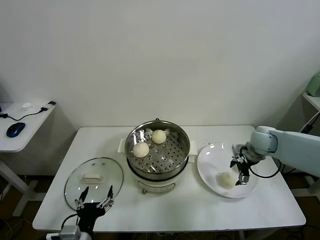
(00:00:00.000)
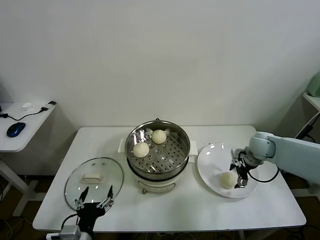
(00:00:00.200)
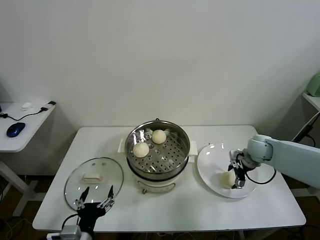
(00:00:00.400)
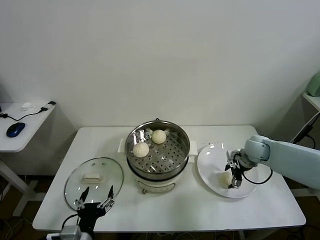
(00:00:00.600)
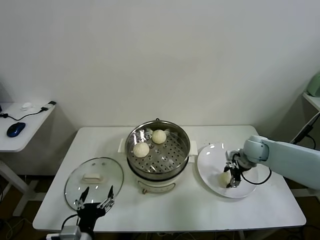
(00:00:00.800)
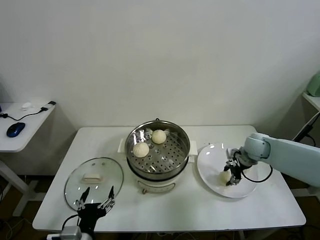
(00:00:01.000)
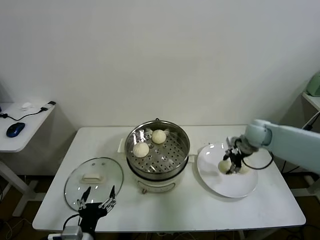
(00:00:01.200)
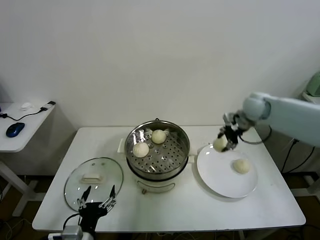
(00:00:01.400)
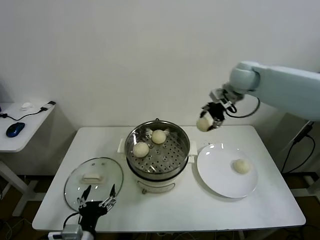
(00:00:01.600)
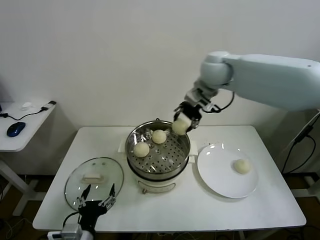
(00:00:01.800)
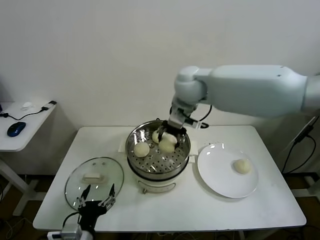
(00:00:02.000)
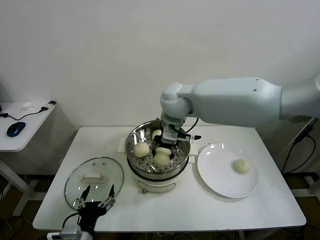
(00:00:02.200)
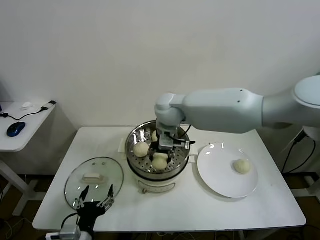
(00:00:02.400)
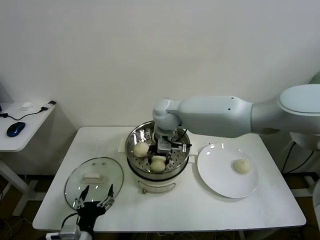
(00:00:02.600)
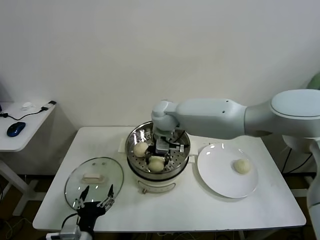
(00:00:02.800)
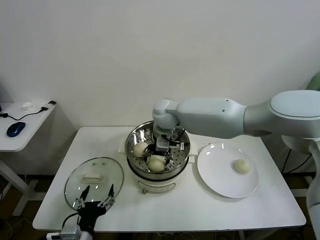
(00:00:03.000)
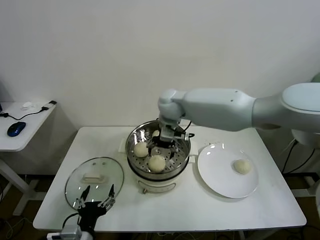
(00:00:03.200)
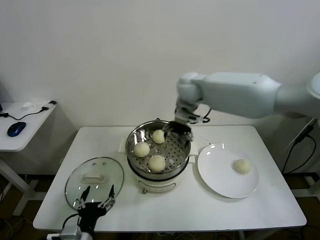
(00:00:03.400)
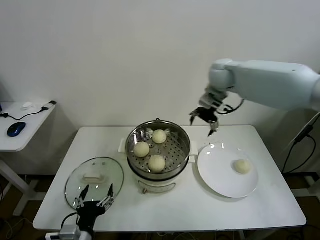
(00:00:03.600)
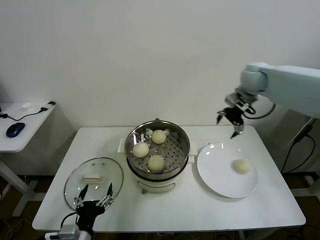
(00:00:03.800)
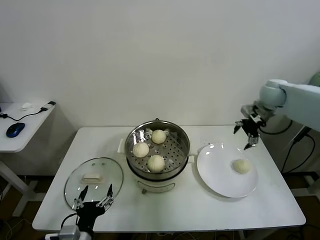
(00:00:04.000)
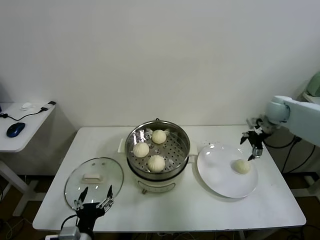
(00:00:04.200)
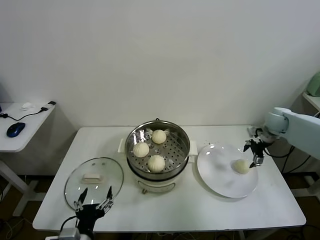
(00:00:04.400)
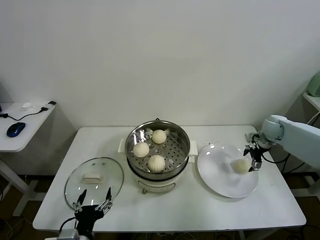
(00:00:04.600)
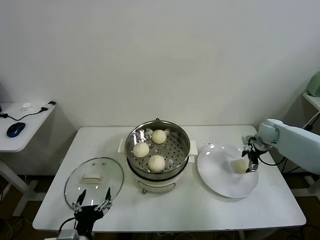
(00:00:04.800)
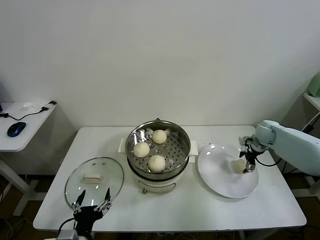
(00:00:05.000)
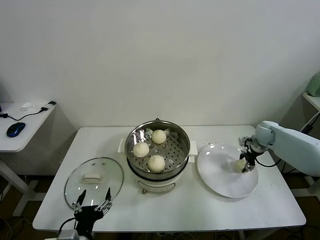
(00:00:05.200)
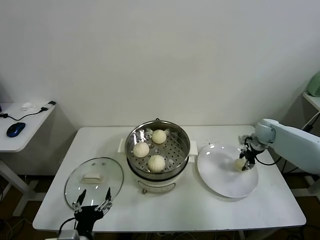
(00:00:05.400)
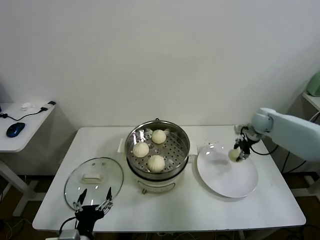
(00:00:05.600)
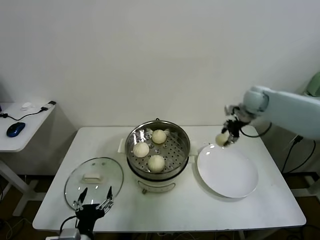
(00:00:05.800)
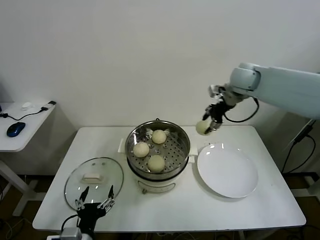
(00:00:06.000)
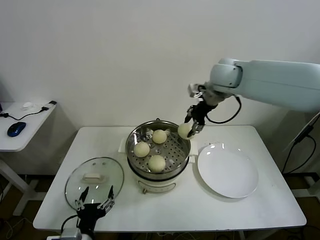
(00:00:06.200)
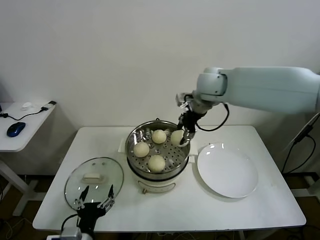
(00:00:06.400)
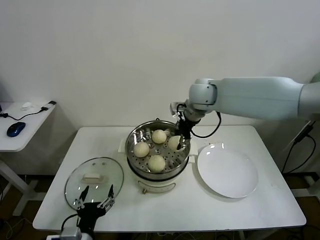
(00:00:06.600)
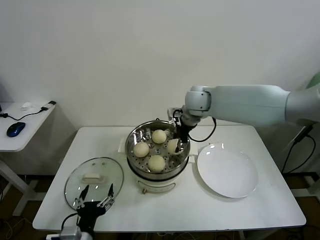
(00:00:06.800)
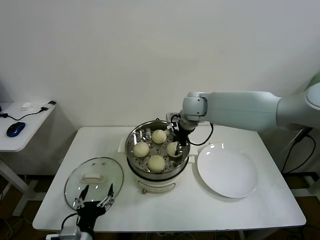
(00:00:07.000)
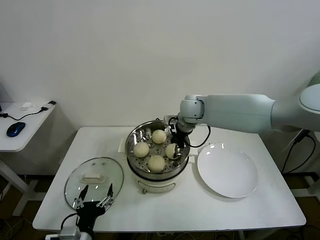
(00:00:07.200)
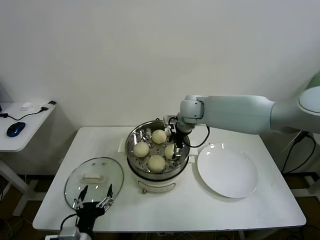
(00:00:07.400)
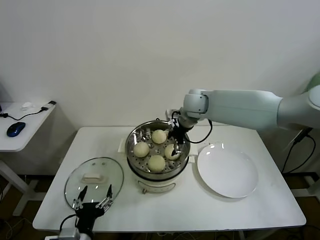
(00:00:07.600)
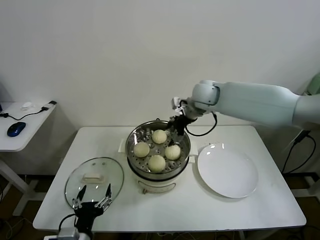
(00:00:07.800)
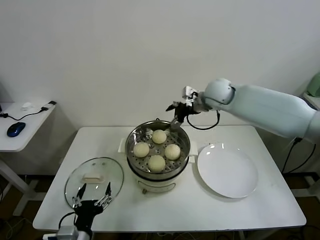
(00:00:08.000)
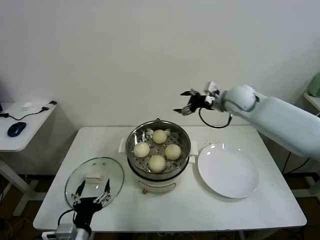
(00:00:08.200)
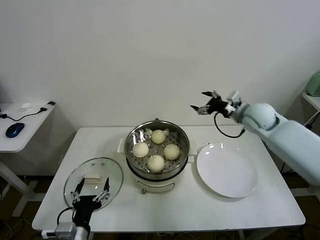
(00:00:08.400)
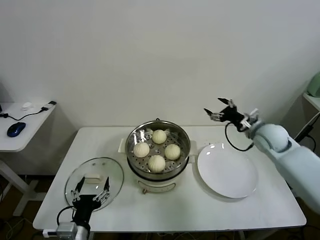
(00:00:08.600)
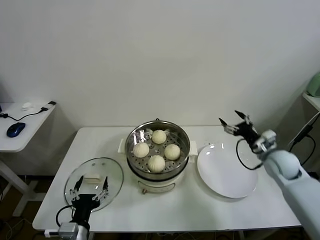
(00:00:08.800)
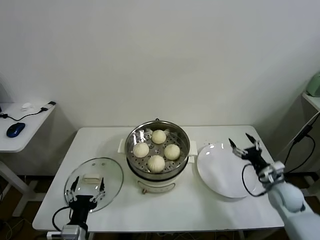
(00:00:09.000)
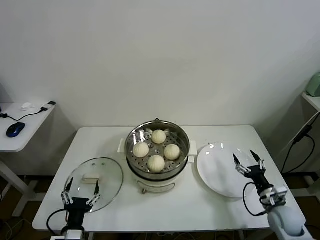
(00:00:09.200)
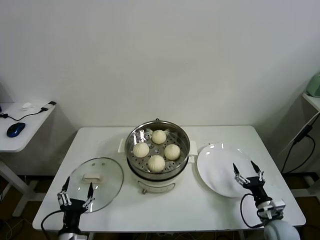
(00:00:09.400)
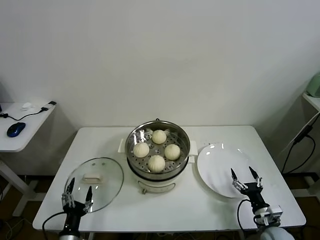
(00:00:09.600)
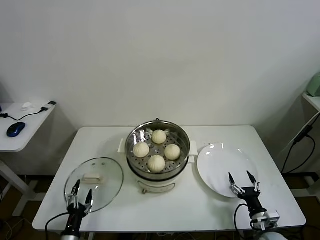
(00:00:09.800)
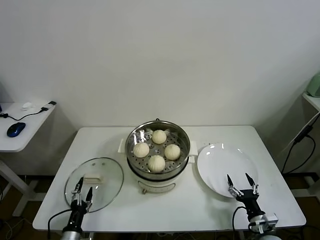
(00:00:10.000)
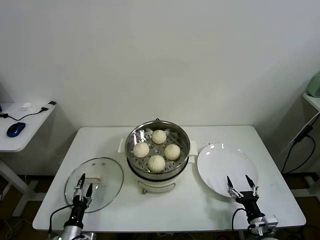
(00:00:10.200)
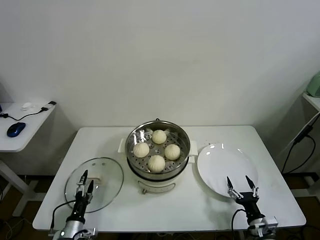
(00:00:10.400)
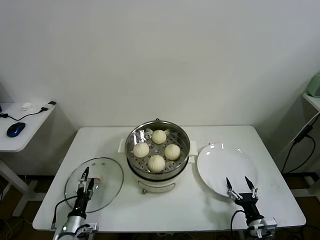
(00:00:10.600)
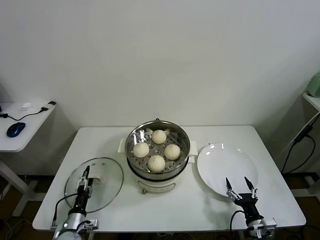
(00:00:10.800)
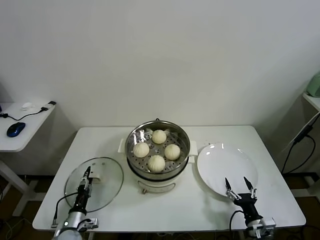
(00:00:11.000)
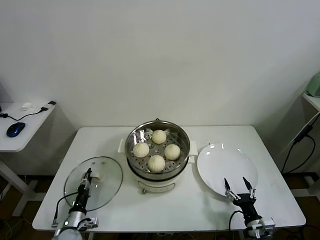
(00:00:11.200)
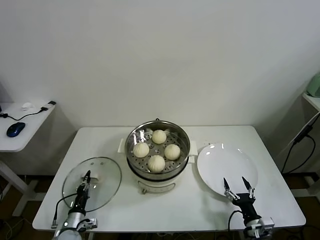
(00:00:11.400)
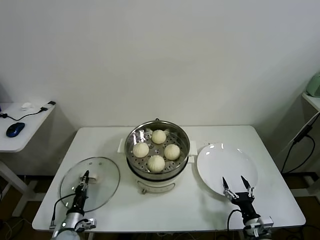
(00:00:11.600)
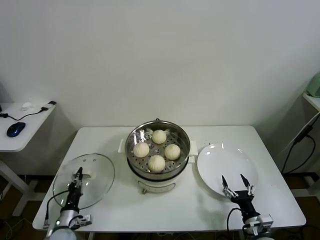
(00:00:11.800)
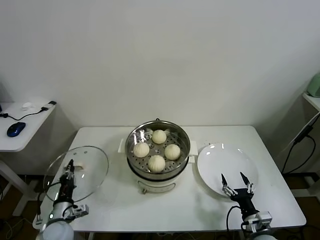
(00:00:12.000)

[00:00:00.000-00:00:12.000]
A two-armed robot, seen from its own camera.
Task of the whole recording: take steamed baozi put them in steamer.
Step, 00:00:01.000 to 00:00:03.000: Place the baozi on the steamer with right gripper.
Step, 00:00:03.200 to 00:00:05.200: Grasp the baozi in the plate with right gripper.
Step, 00:00:05.400 to 00:00:07.400: Place the baozi on the steamer with right gripper.
Step, 00:00:07.800 to 00:00:11.400: Grasp the pot lid with left gripper.
00:00:00.000 to 00:00:01.600: The right gripper shifts about 25 cm upward, to the left and forward, and closes its fingers.
00:00:01.600 to 00:00:03.000: The right gripper goes some 25 cm to the left and downward, and opens up.
00:00:03.000 to 00:00:04.400: The right gripper goes about 40 cm to the right.
00:00:04.400 to 00:00:06.000: The right gripper shifts approximately 20 cm to the left and upward, and closes.
00:00:06.000 to 00:00:07.600: The right gripper moves to the left and downward, some 20 cm, and opens its fingers.
00:00:07.600 to 00:00:09.000: The right gripper shifts some 40 cm to the right, downward and backward.
00:00:09.000 to 00:00:10.400: The right gripper goes some 20 cm backward, downward and to the left. Meanwhile the left gripper heads downward and to the left, covering about 15 cm.
00:00:10.400 to 00:00:12.000: The left gripper ends up some 5 cm from where it was, and closes up.

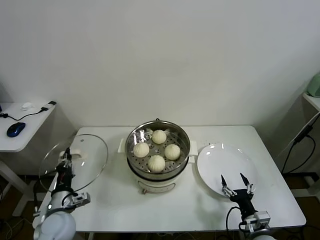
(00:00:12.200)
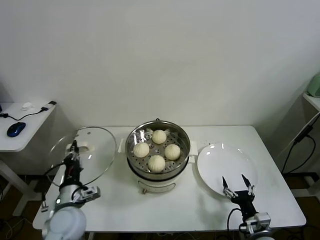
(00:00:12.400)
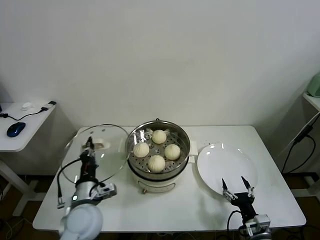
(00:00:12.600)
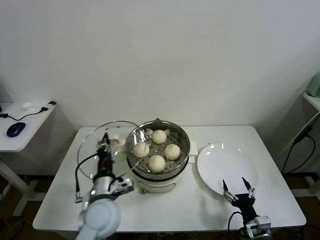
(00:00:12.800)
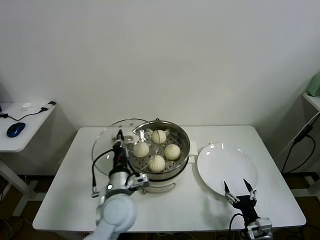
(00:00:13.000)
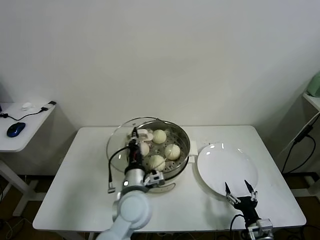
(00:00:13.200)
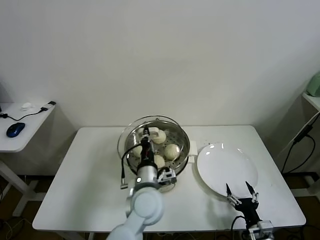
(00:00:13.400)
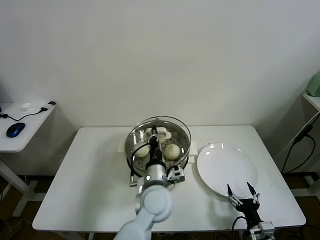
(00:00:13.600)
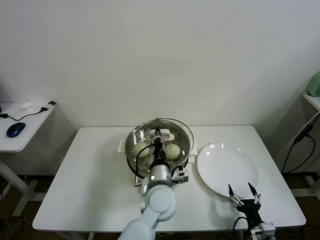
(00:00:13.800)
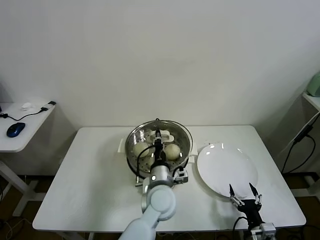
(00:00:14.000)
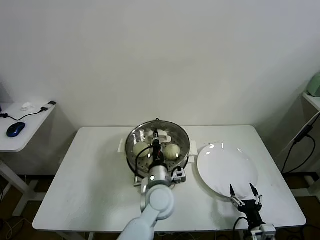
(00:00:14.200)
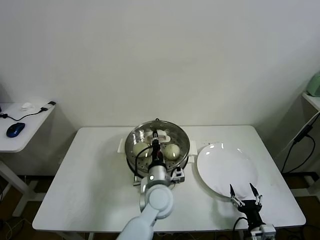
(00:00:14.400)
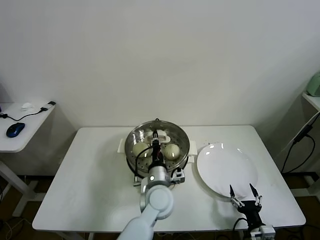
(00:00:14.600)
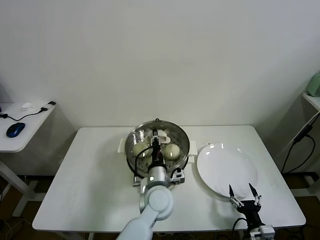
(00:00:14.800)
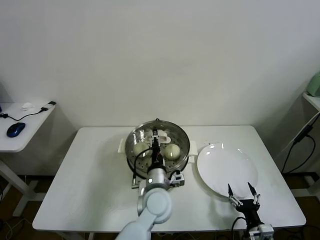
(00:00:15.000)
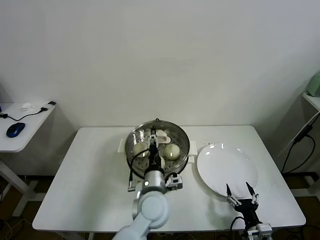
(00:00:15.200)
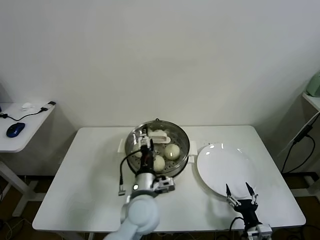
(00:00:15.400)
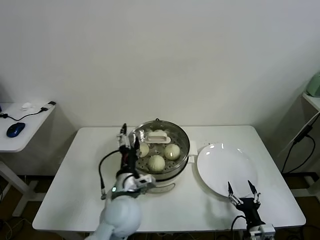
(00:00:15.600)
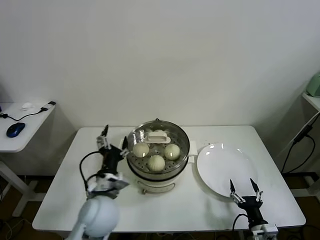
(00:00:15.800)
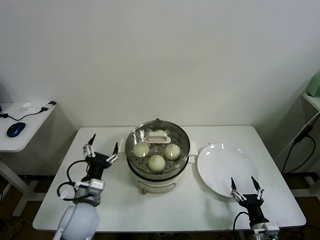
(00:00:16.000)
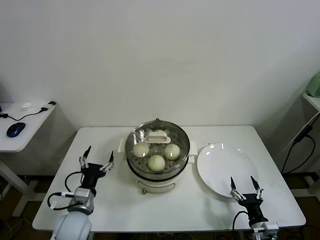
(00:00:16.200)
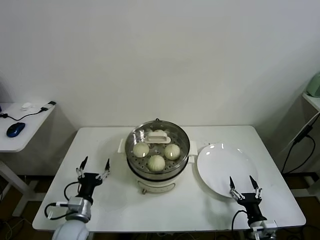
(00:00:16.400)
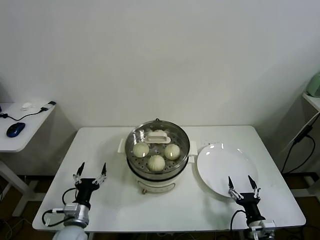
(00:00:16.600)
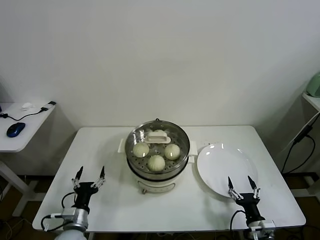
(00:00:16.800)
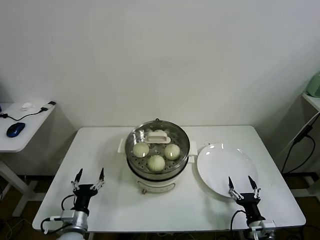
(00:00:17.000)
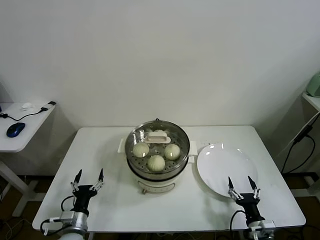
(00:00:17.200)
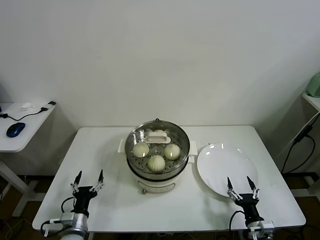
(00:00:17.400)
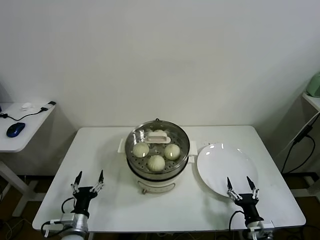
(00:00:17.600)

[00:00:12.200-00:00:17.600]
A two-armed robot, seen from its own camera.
Task of the whole recording: take steamed baozi put them in steamer.
Step, 00:00:12.200 to 00:00:15.200: Place the pot lid on the steamer with left gripper.
00:00:12.200 to 00:00:13.600: The left gripper heads to the right, covering about 30 cm.
00:00:13.600 to 00:00:15.000: The left gripper opens its fingers.
00:00:15.000 to 00:00:16.200: The left gripper goes about 25 cm to the left, and opens its fingers.
00:00:16.200 to 00:00:17.600: The left gripper heads downward, covering approximately 10 cm.
